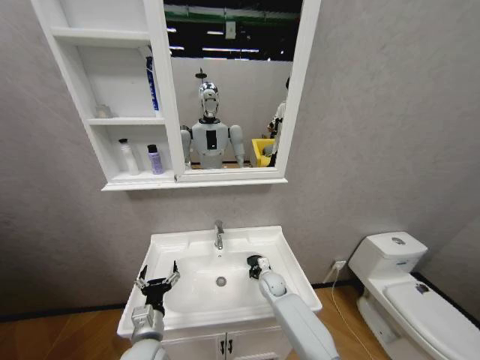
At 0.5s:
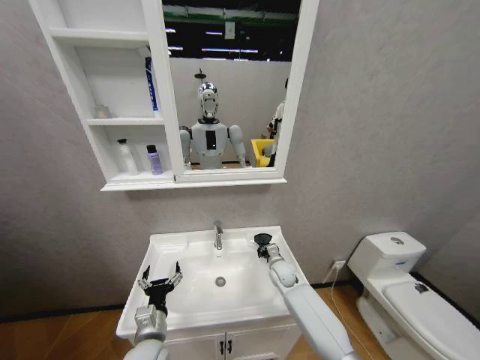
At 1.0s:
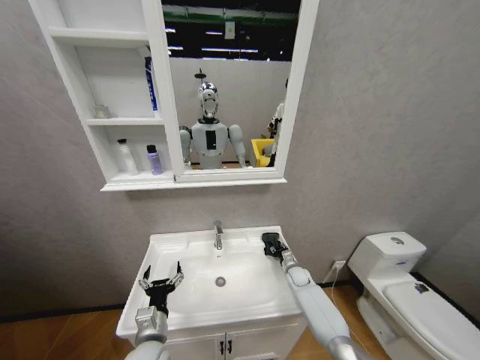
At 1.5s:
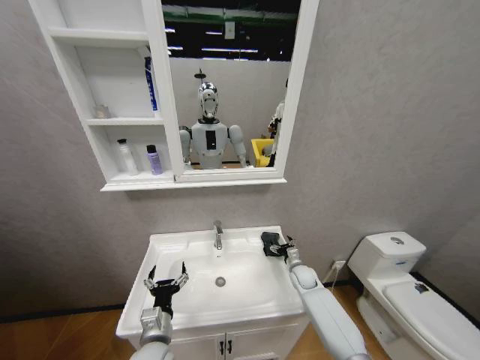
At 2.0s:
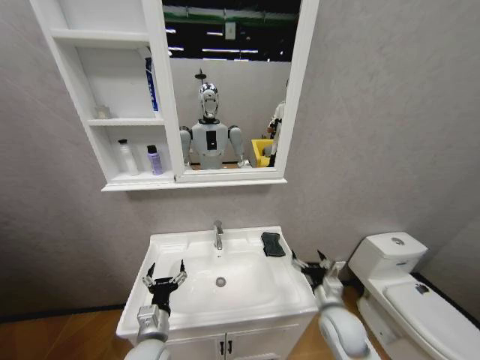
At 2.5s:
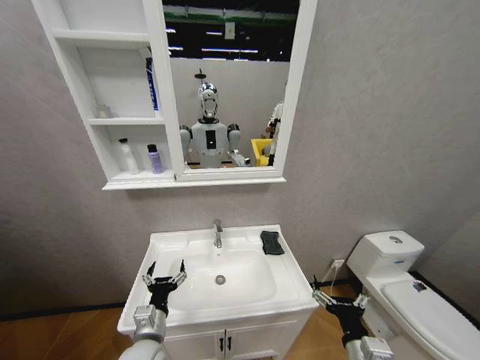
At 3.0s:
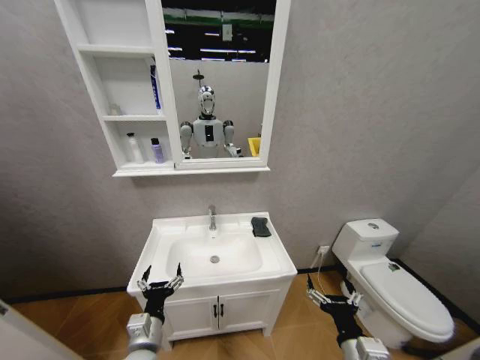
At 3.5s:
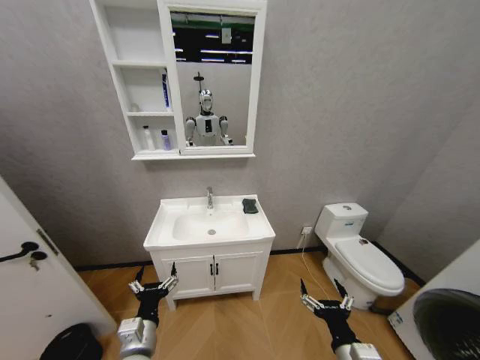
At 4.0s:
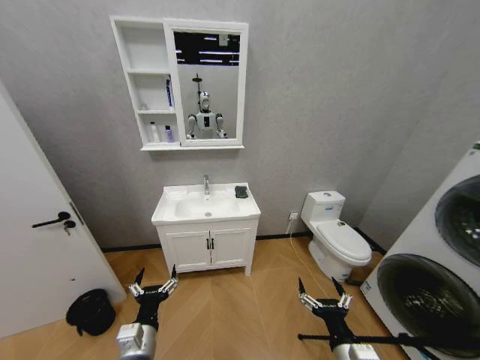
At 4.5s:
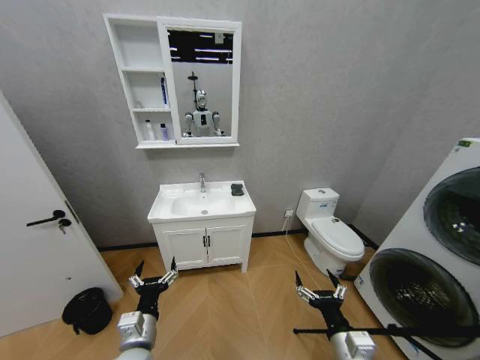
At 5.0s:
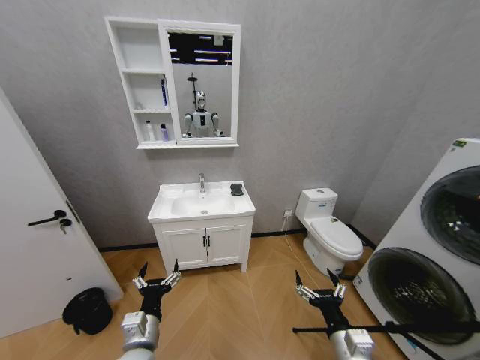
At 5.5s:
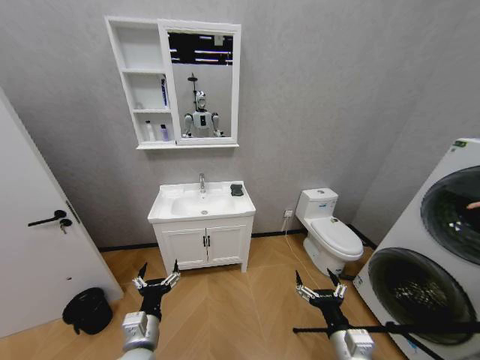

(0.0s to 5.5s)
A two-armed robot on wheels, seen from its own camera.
Task of the whole recording: Move facial cleanser and shampoo from washbasin to cabinet, then wipe washbasin with towel.
0.0s - 2.0s: The right gripper travels backward, to the right and upward by approximately 25 cm, and opens.
2.0s - 3.5s: The right gripper heads backward, covering approximately 15 cm.

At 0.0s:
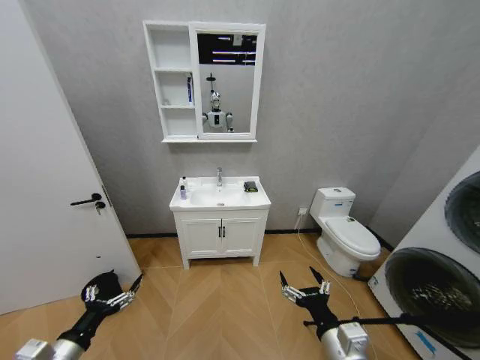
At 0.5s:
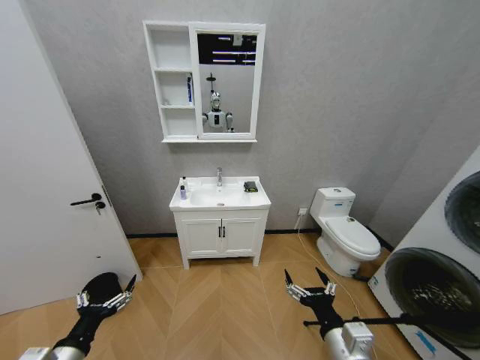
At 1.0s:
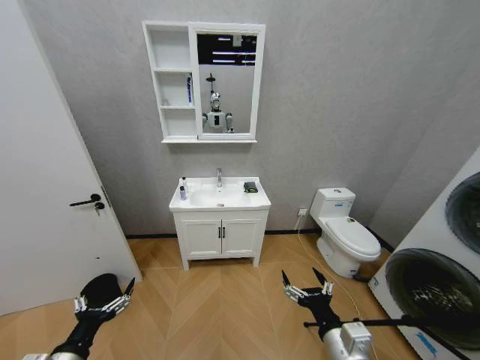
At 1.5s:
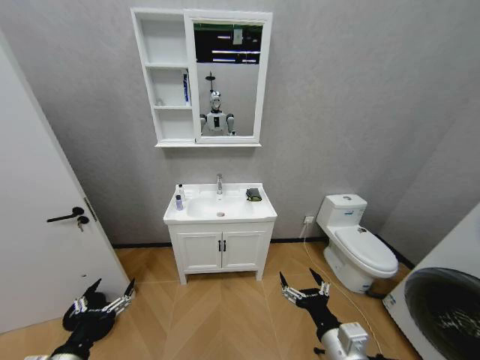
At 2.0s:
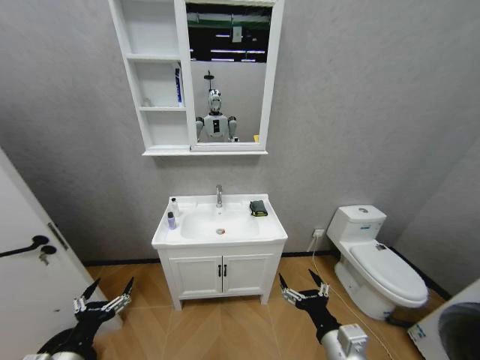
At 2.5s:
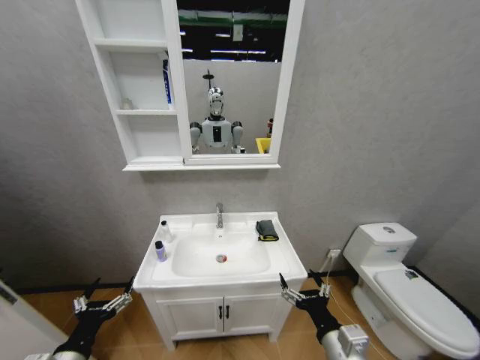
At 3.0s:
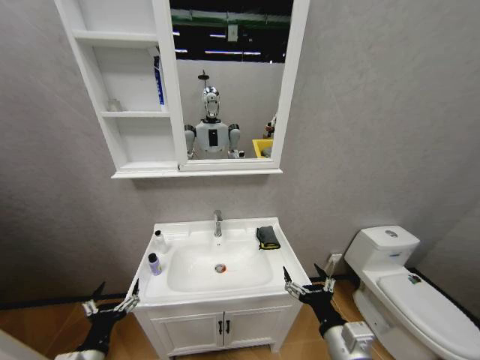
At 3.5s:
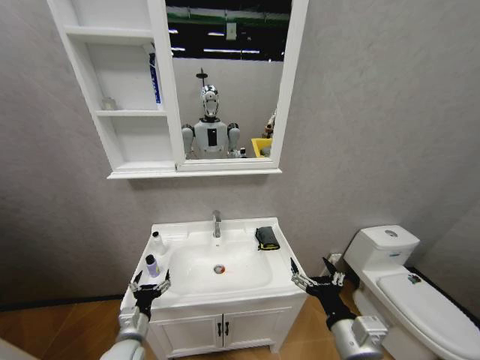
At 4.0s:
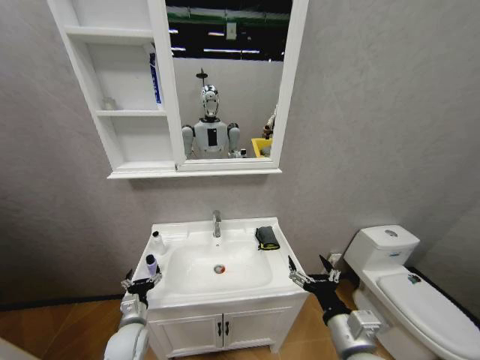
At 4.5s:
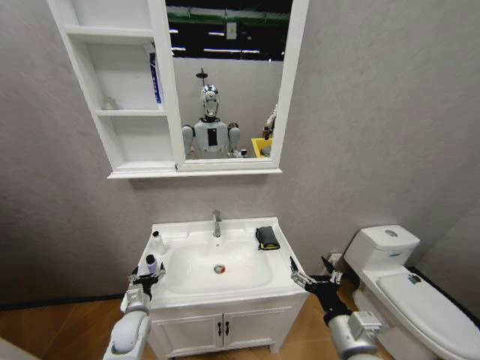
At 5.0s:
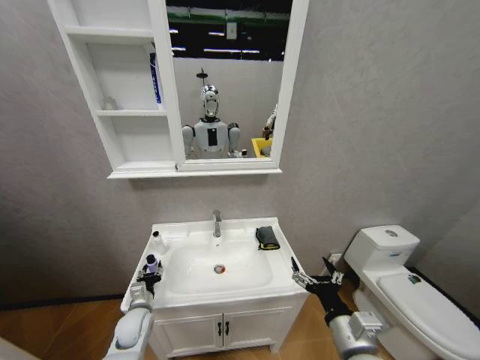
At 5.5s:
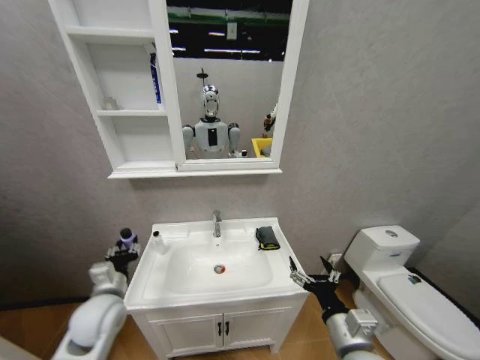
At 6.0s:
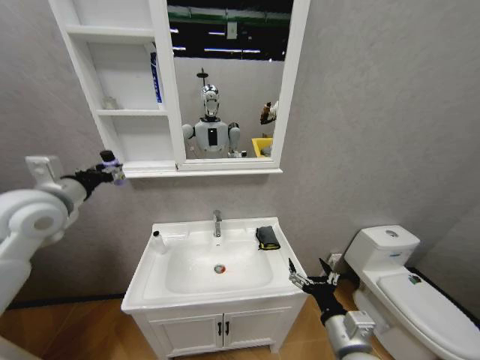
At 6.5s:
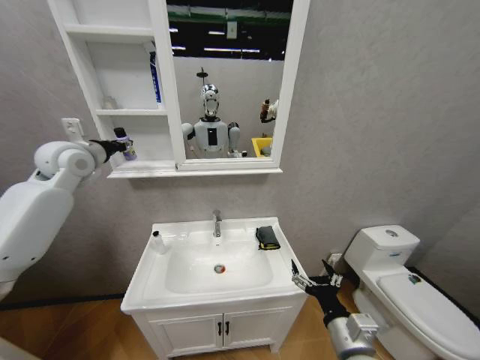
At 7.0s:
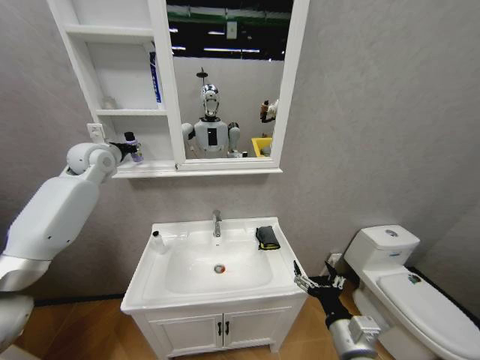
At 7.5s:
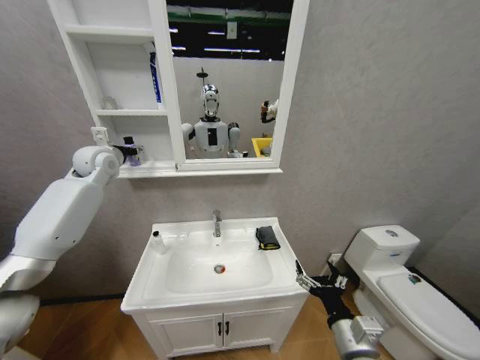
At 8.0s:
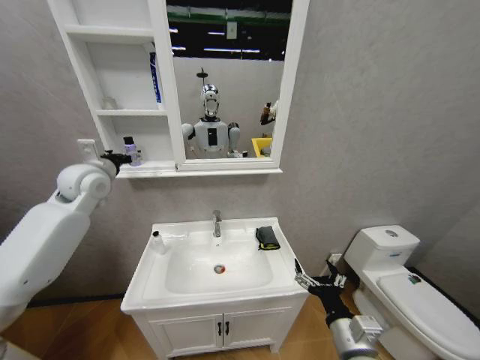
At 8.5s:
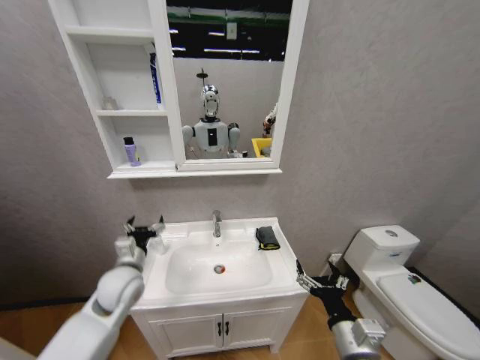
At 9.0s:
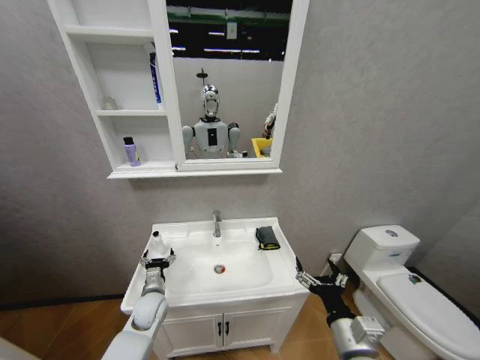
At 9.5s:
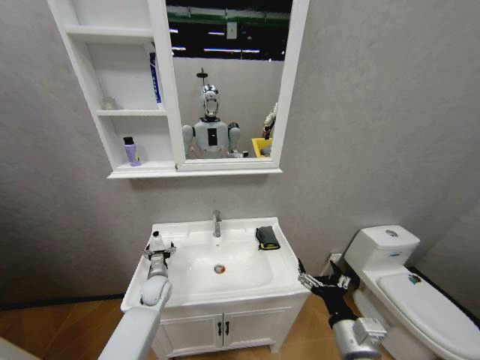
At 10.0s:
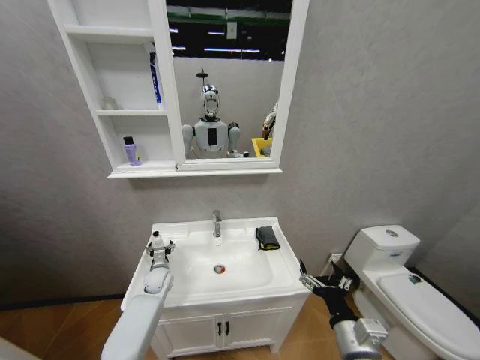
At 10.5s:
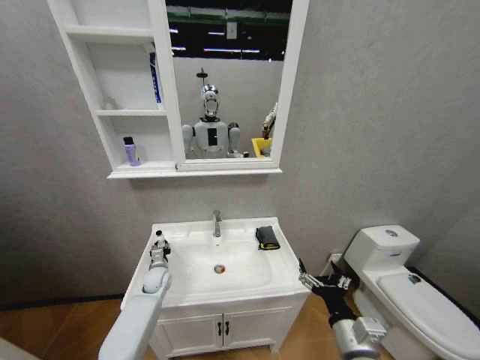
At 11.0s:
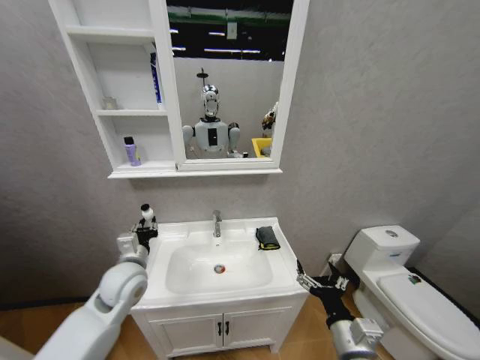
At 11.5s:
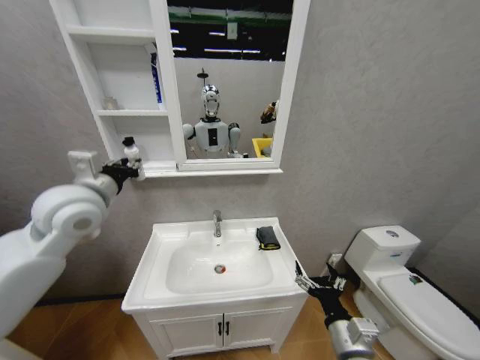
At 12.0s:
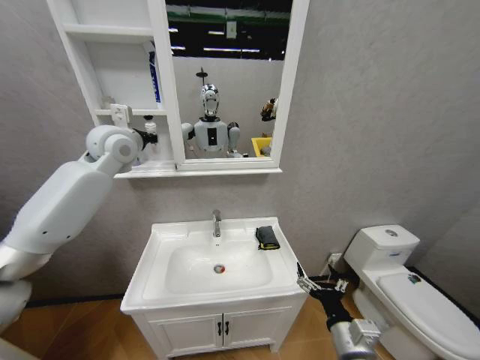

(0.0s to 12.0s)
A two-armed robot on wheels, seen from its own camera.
Task of the whole recording: Move facial cleanser and shampoo from washbasin to cabinet, then wipe washbasin with towel.
2.0s - 4.0s: The left gripper shifts some 20 cm forward, downward and to the right.
4.0s - 6.0s: The left gripper is displaced upward by some 40 cm, and closes up.
6.0s - 8.0s: The left gripper goes about 10 cm forward, and opens.
8.0s - 10.0s: The left gripper travels downward by about 40 cm.
10.0s - 12.0s: The left gripper heads upward, covering approximately 50 cm, and closes.

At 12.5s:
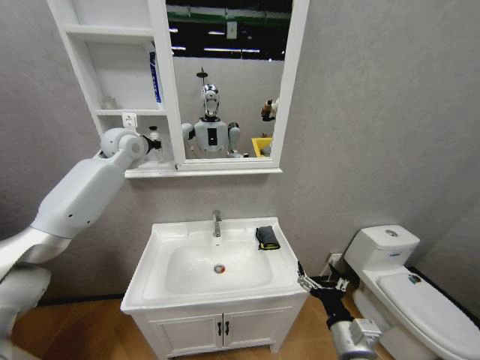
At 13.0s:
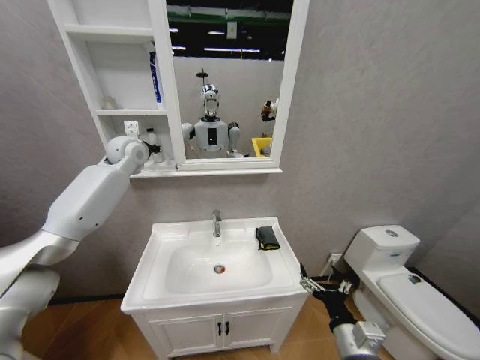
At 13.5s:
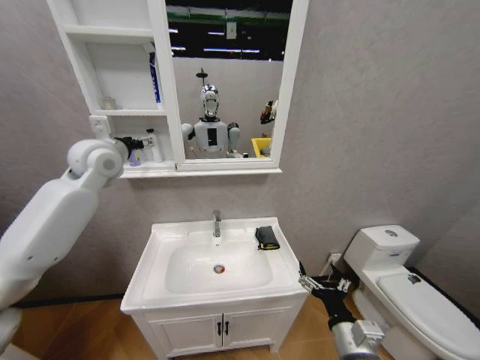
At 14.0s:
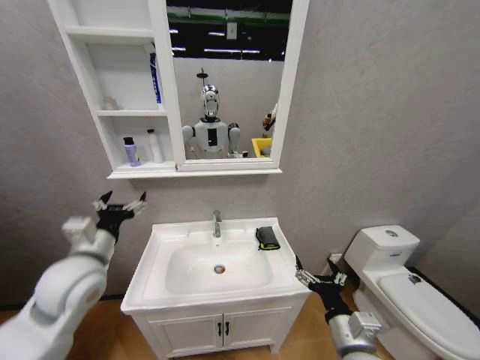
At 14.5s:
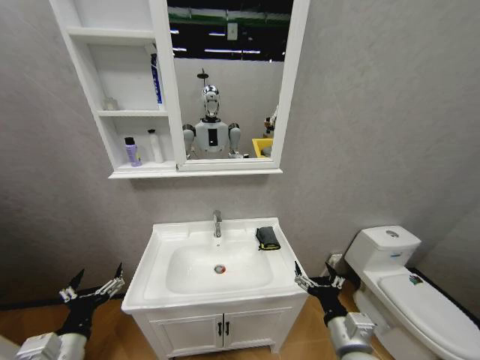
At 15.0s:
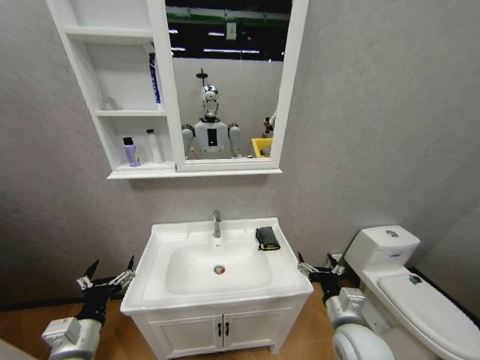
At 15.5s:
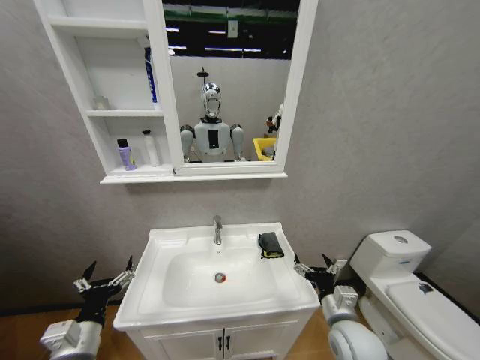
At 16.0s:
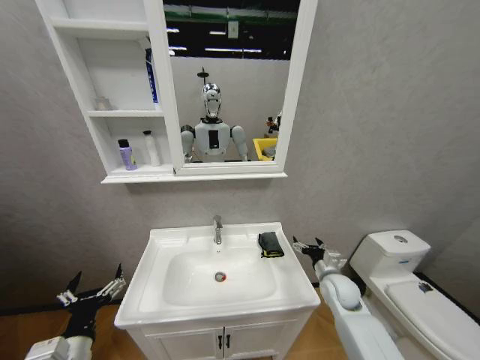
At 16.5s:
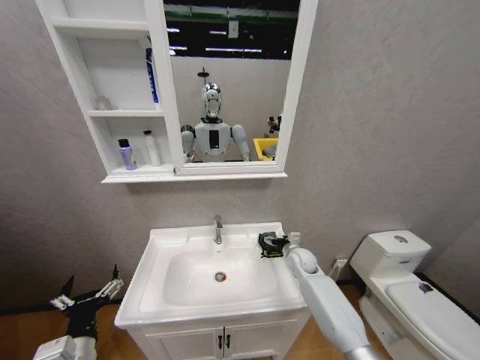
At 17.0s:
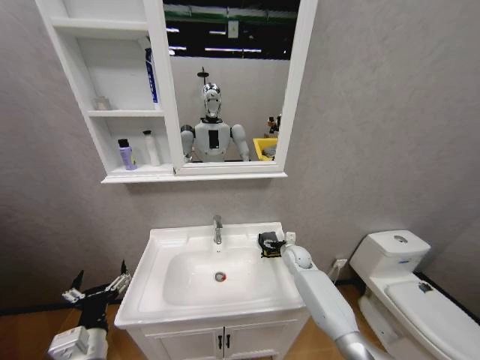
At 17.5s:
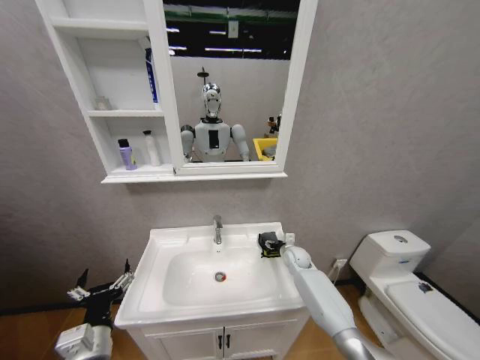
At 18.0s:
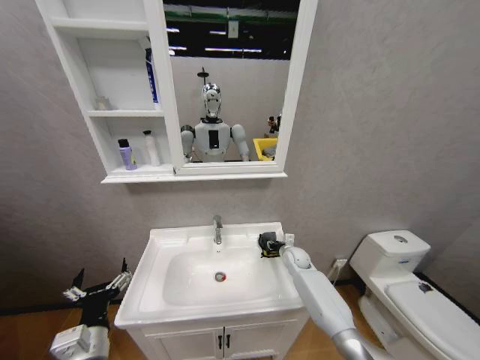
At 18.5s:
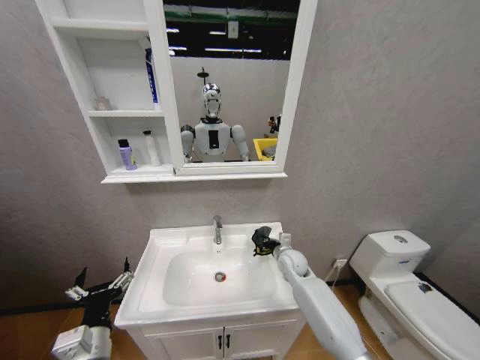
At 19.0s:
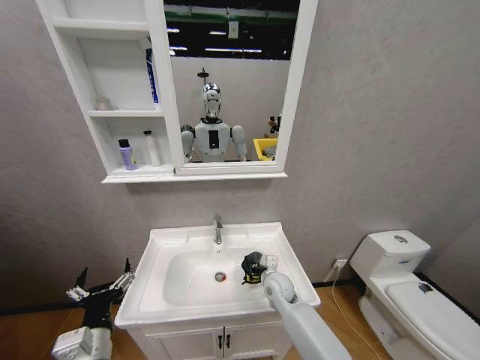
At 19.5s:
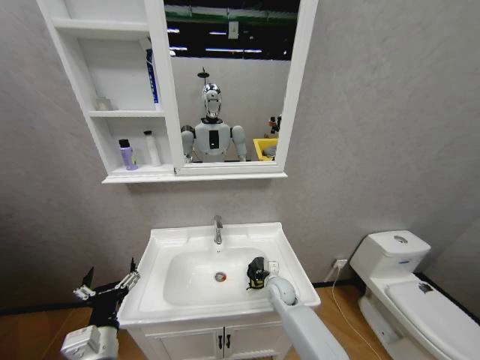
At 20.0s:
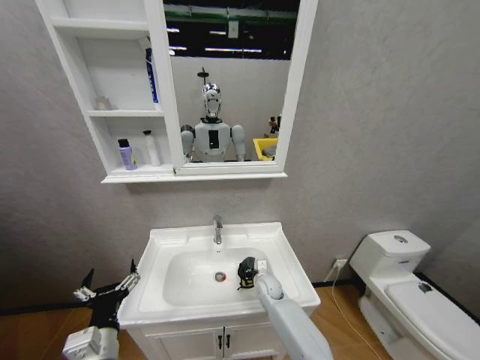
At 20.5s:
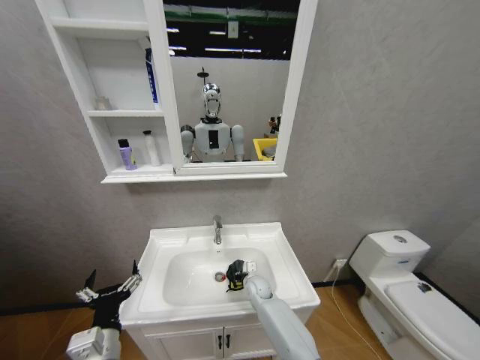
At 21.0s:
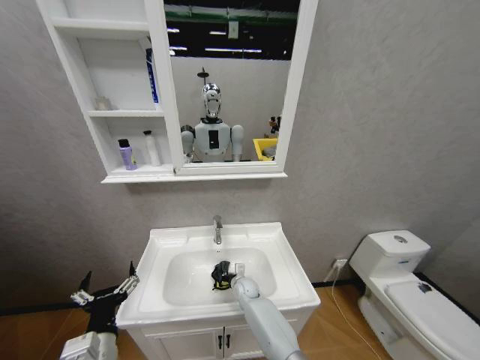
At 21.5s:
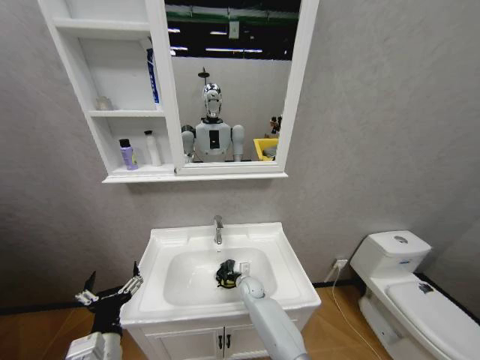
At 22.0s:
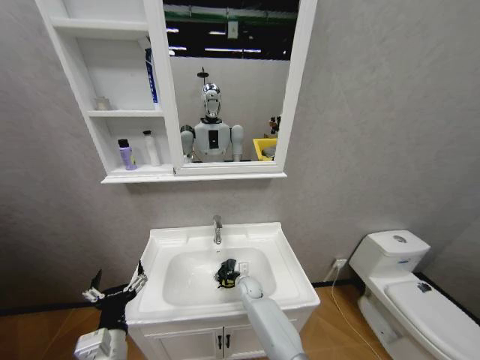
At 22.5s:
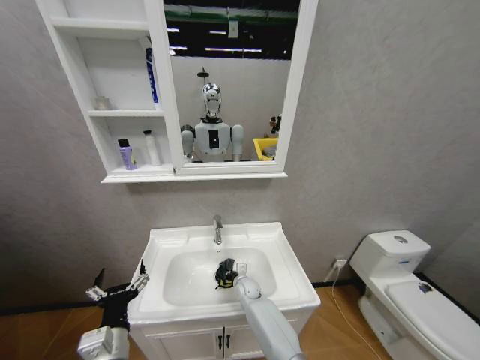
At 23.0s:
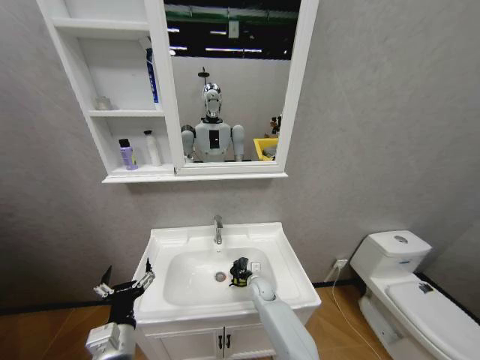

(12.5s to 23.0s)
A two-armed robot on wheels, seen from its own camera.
Task of the whole recording: Move facial cleanser and shampoo from washbasin to cabinet, then wipe washbasin with towel.
12.5s - 14.5s: The left gripper heads backward and downward, covering roughly 50 cm, and opens.
14.5s - 16.5s: The right gripper moves forward, roughly 30 cm.
16.5s - 19.0s: The right gripper goes roughly 15 cm to the left and backward, and closes up.
19.0s - 21.0s: The right gripper goes some 15 cm downward, to the left and forward.
21.0s - 23.0s: The right gripper travels to the right by approximately 5 cm.
